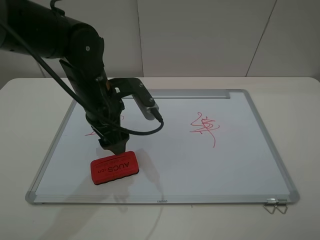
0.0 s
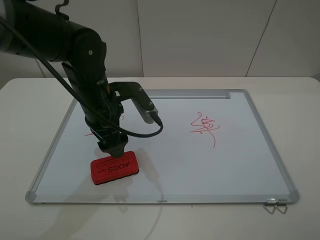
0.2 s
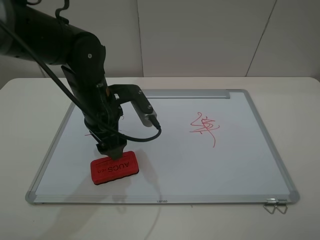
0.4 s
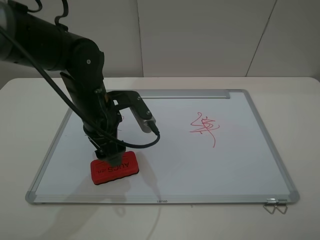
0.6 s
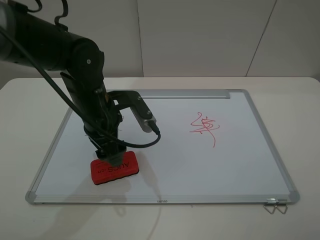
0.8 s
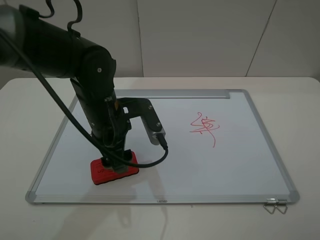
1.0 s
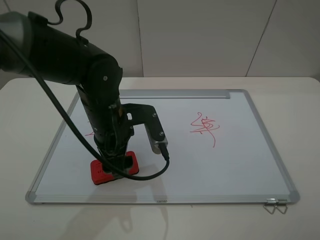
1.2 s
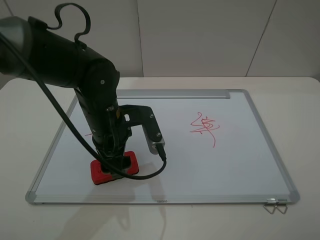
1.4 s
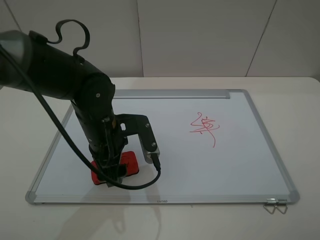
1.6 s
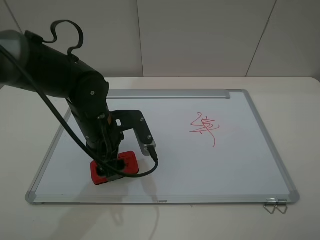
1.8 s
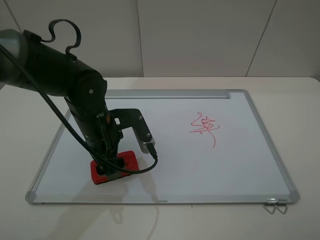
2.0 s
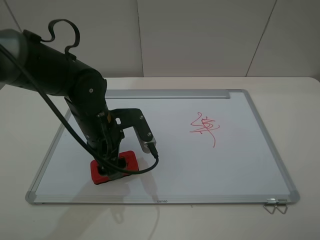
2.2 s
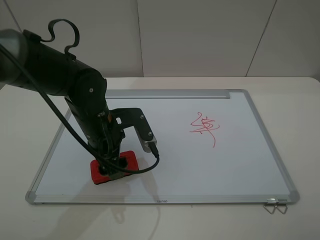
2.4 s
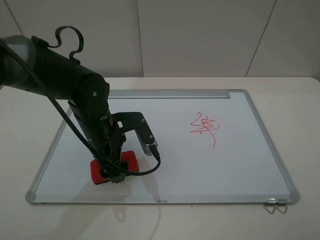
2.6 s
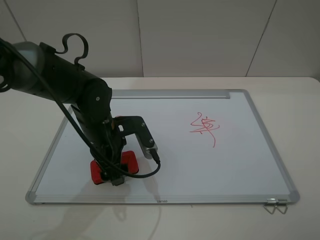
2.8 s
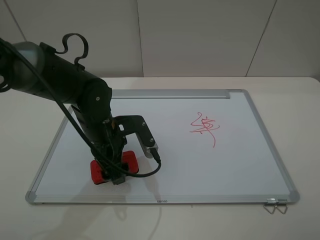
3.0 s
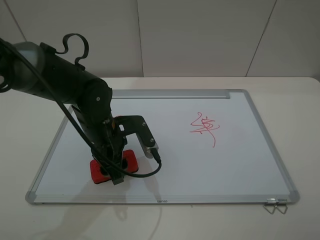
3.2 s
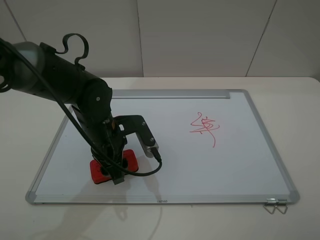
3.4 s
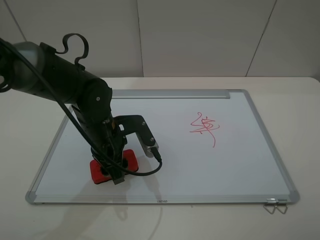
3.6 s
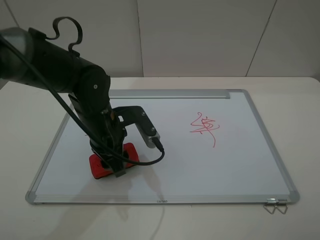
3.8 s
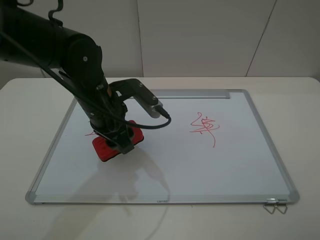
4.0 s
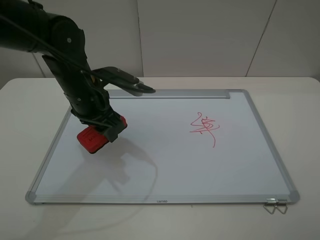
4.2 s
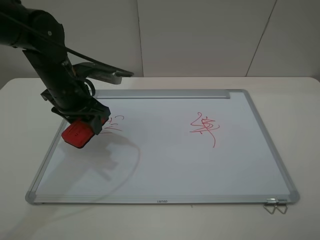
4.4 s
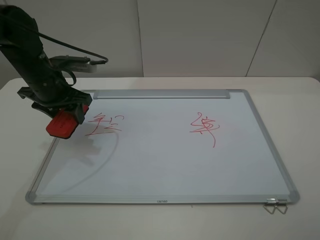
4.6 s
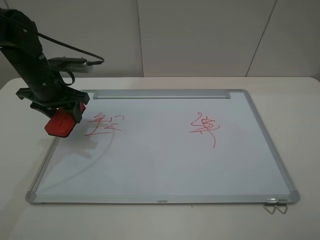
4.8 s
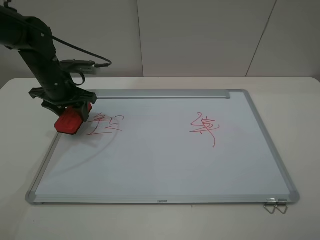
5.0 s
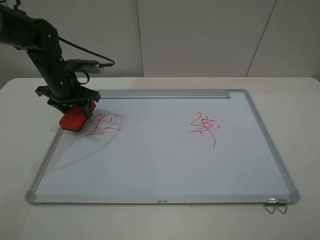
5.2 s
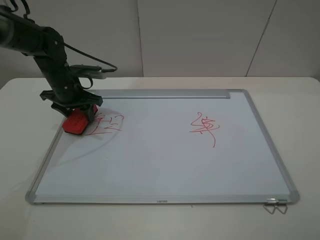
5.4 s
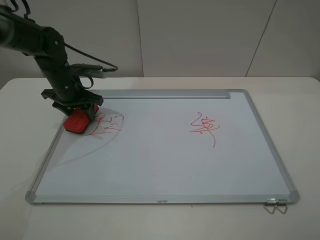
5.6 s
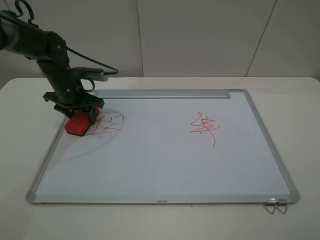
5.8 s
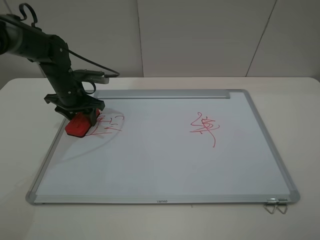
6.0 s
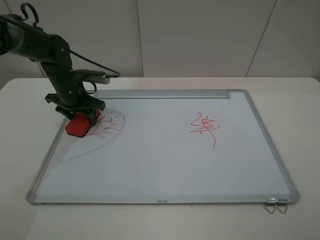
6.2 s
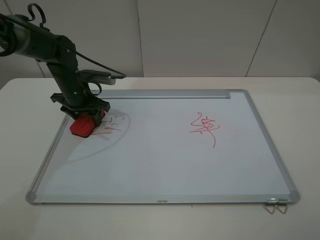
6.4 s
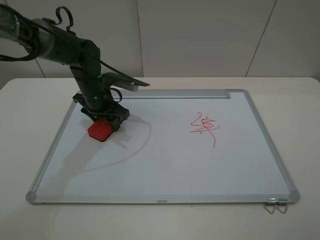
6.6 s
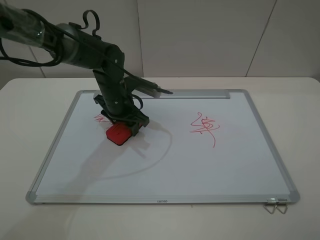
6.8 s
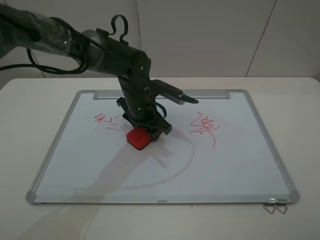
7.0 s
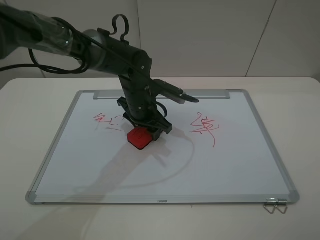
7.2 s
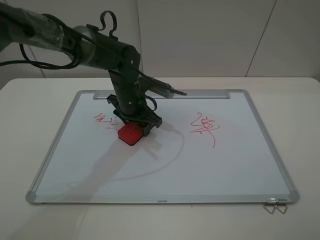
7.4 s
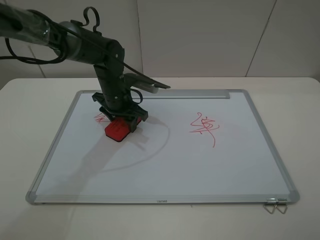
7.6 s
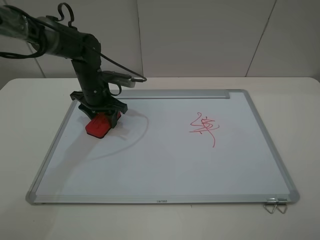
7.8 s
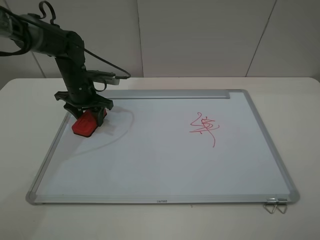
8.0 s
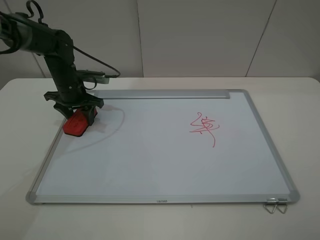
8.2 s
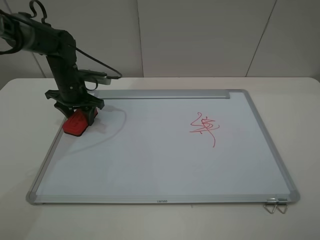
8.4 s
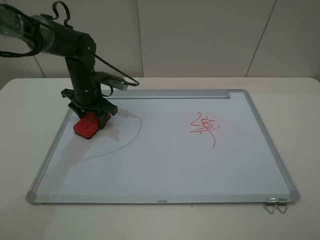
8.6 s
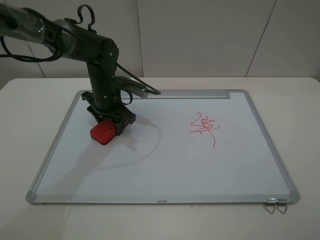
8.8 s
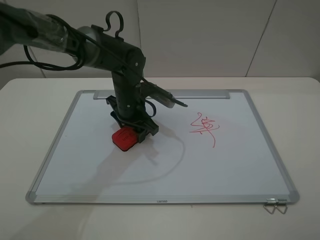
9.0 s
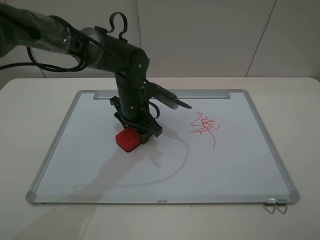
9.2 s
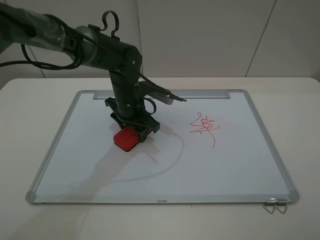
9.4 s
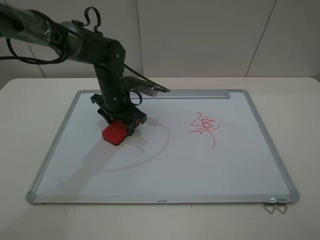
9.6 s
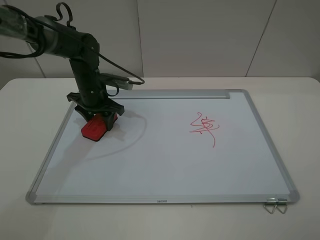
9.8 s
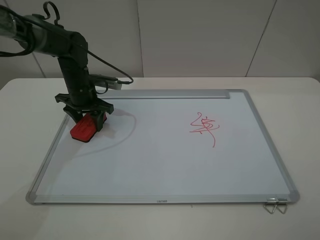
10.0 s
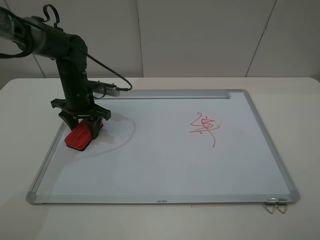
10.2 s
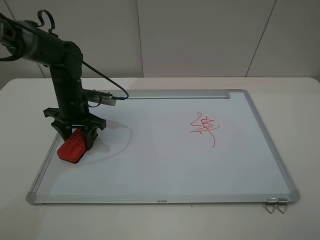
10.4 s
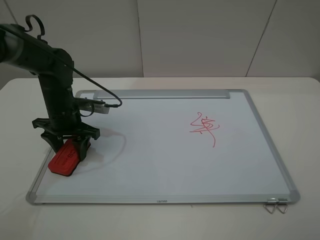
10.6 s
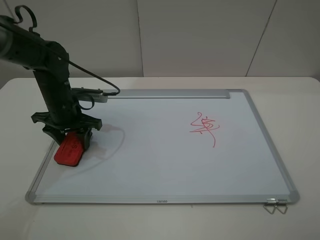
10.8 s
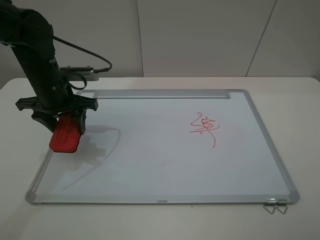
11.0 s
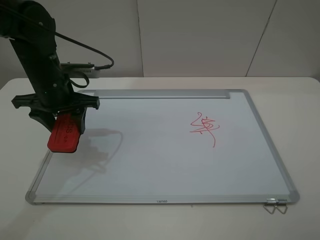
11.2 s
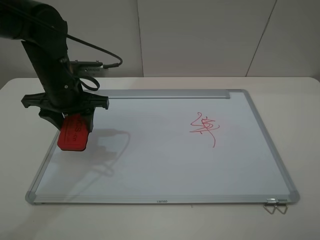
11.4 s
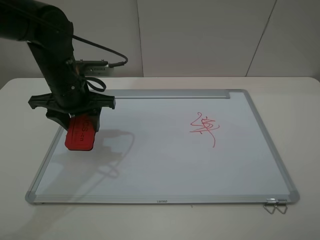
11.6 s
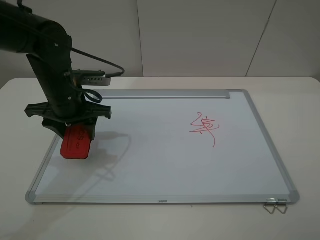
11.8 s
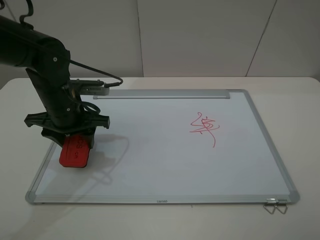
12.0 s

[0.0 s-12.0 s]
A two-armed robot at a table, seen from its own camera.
Step, 0.0 to 3.2 s: Grasp the eraser with the left gripper.
Step, 3.4 to 10.8 s: Grasp the eraser and wipe the blackboard with the left gripper.
0.0 to 1.6 s: The left gripper ends up roughly 5 cm from where it was.
1.6 to 3.0 s: The grippers make only small movements.
3.0 to 4.4 s: The left gripper moves to the left, upward and forward, approximately 10 cm, and closes.
4.4 to 6.0 s: The left gripper moves forward and downward, roughly 10 cm.
6.0 to 7.6 s: The left gripper is displaced to the right by approximately 10 cm.
7.6 to 9.0 s: The left gripper reaches about 15 cm to the left, then returns.
9.0 to 10.4 s: The left gripper shifts roughly 15 cm to the left.
10.4 to 12.0 s: The left gripper heads backward and upward, covering some 10 cm.

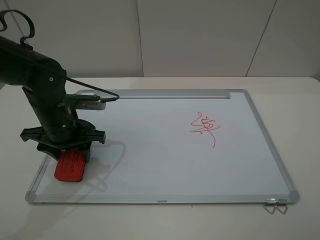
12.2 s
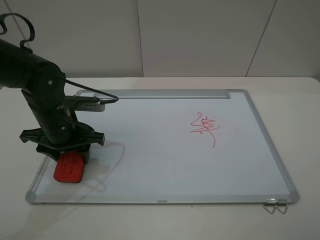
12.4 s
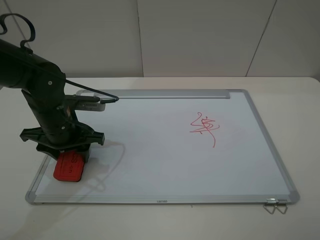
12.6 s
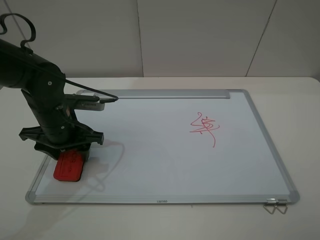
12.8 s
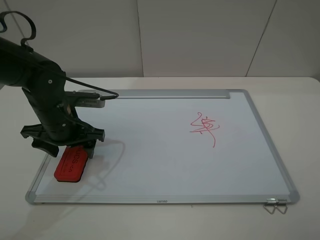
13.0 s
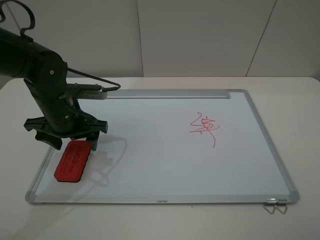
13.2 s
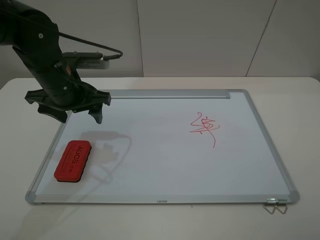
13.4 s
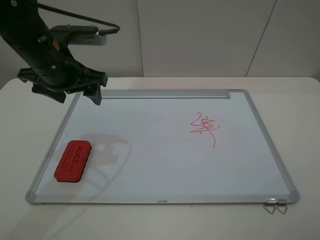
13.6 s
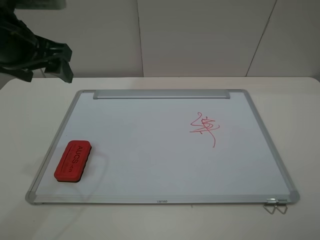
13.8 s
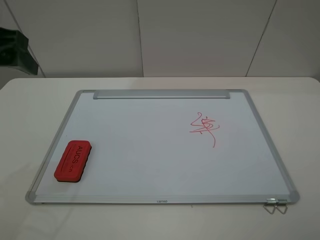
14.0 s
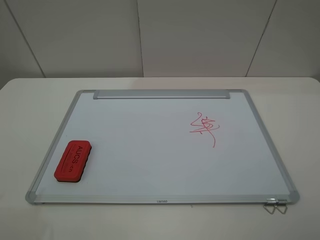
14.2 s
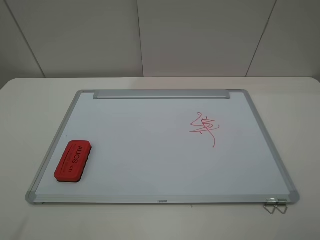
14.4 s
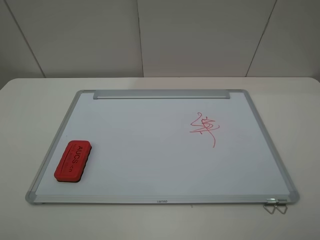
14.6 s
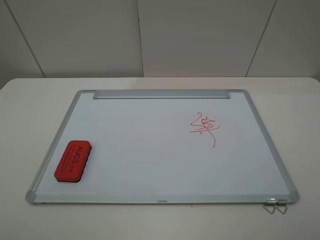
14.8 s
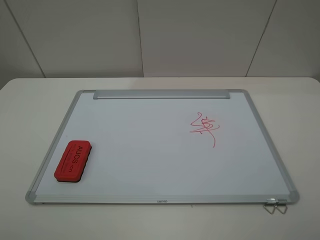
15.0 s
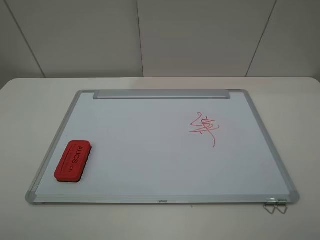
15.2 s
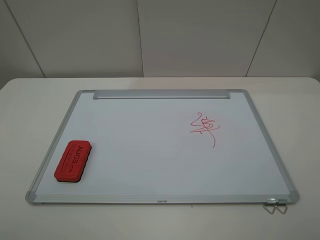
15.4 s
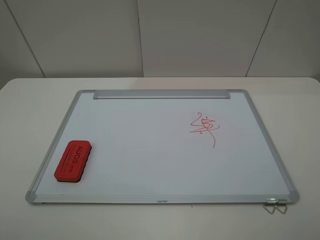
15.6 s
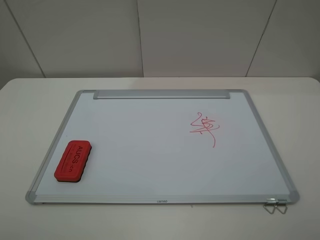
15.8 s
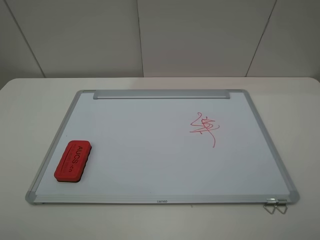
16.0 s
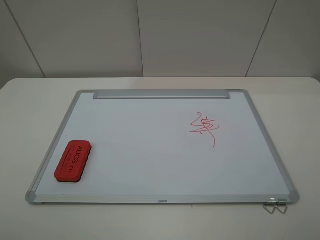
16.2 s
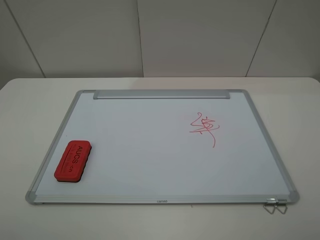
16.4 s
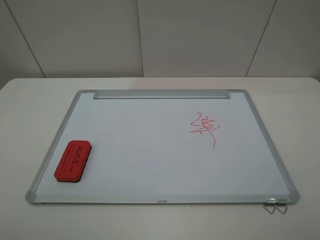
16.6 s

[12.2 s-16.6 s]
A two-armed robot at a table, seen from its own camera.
12.2 to 13.6 s: The left gripper shifts approximately 10 cm upward, and opens.
13.6 to 15.2 s: The left gripper goes some 30 cm backward and to the left.

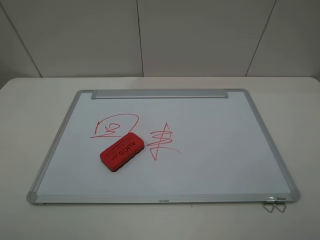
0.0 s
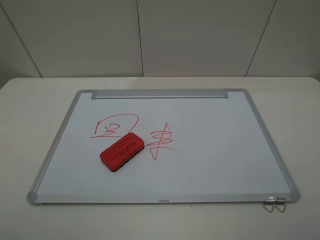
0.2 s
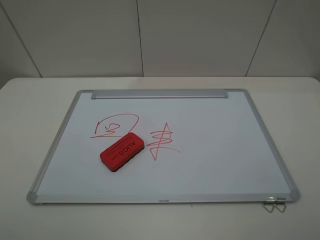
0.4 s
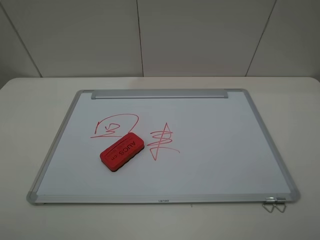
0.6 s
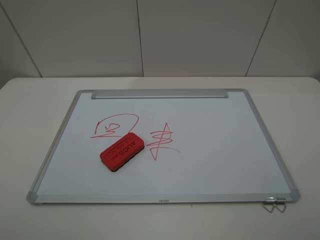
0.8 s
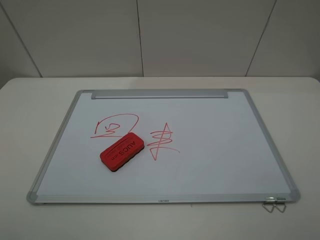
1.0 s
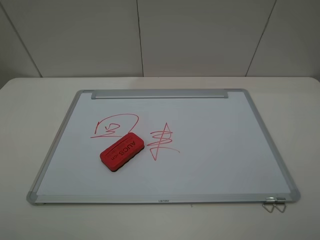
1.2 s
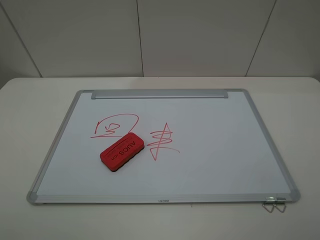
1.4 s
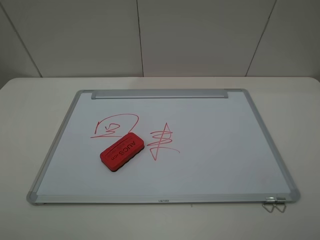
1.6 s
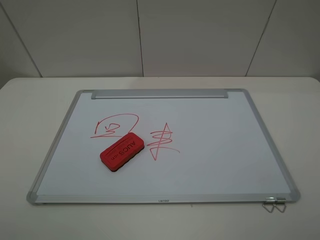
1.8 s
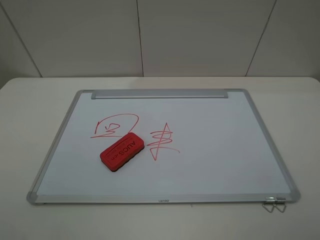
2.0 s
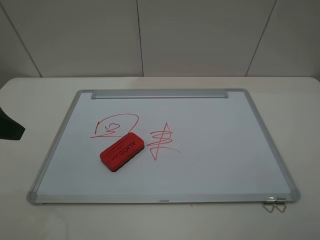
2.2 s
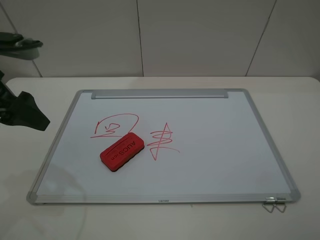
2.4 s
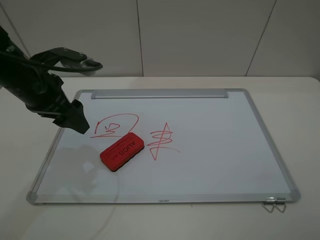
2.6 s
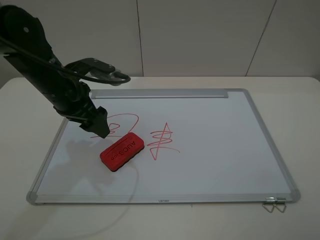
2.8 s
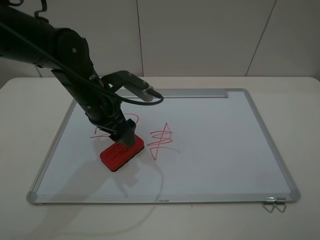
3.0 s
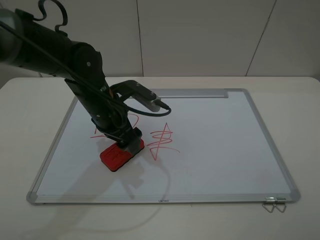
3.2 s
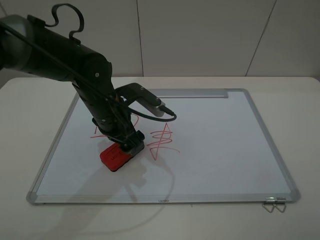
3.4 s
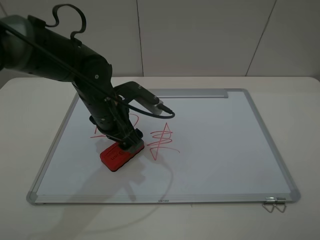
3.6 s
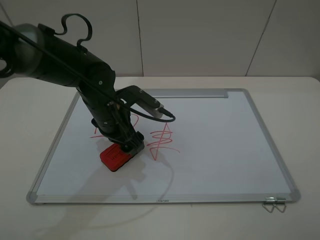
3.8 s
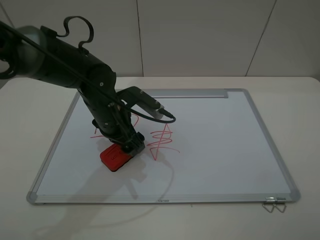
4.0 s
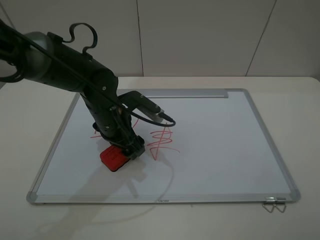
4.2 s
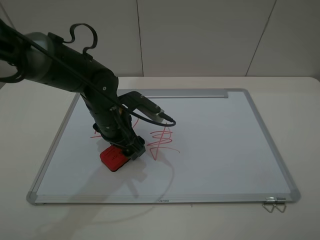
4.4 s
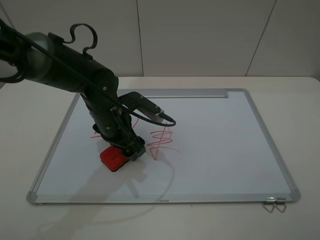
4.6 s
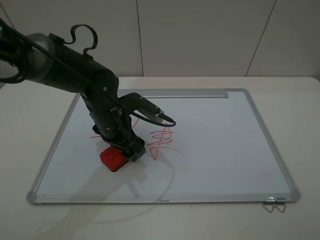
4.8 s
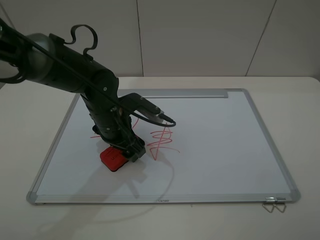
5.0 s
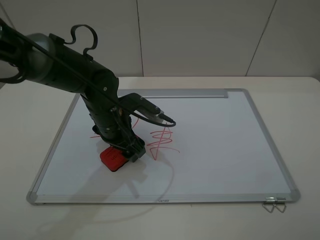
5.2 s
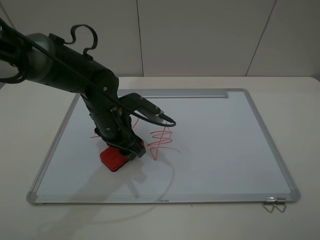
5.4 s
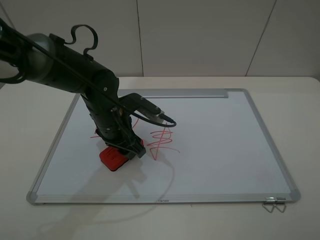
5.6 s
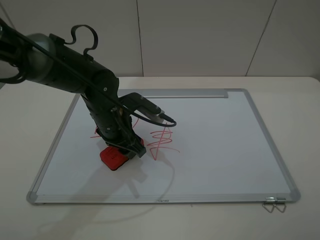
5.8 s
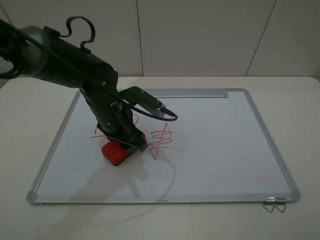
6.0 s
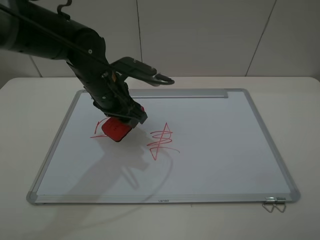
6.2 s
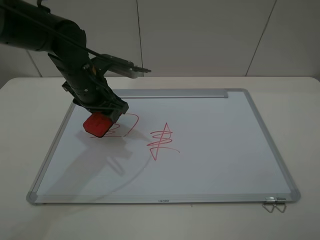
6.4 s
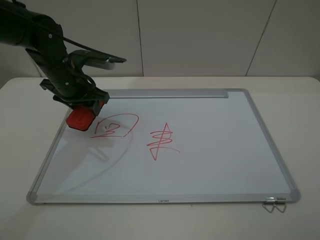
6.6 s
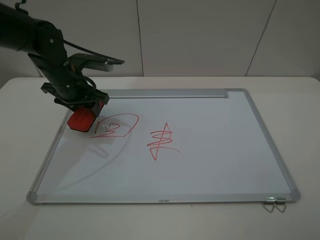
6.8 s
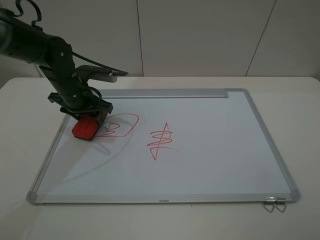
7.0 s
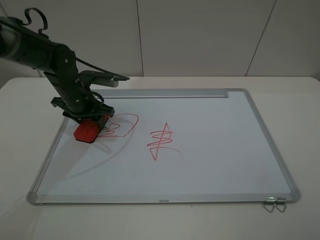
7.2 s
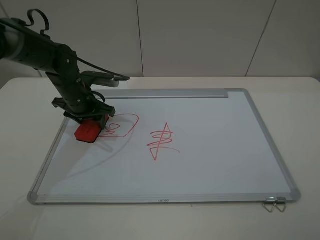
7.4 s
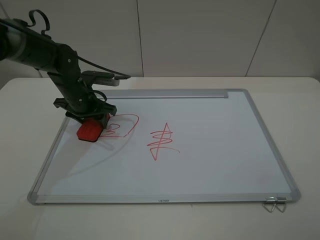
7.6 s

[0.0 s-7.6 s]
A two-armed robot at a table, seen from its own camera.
Step, 0.0 to 5.4 s: Grasp the eraser with the left gripper.
0.0 to 1.6 s: Both grippers stay about where they are.
1.6 to 3.0 s: The left gripper is displaced forward, to the right and downward by approximately 40 cm.
3.0 to 4.6 s: The left gripper ends up some 5 cm from where it was.
4.6 to 6.0 s: The left gripper closes.
6.0 to 7.6 s: The left gripper shifts roughly 15 cm to the left and forward.
